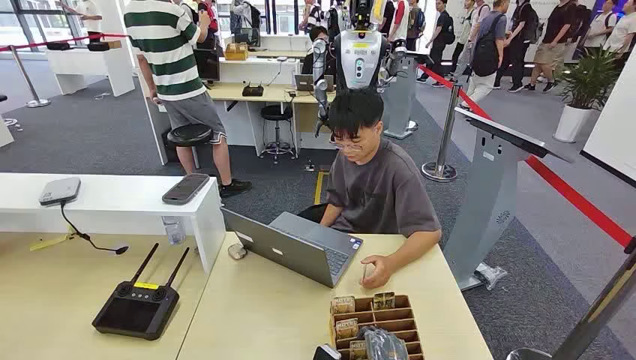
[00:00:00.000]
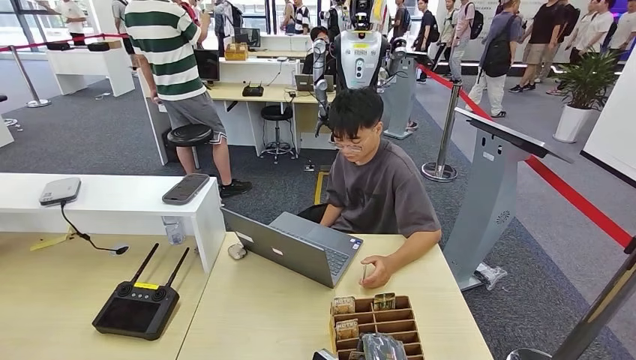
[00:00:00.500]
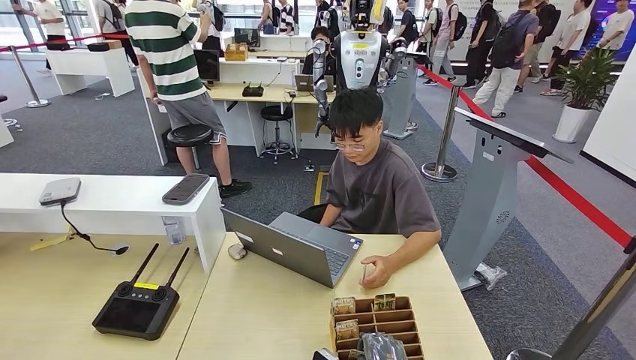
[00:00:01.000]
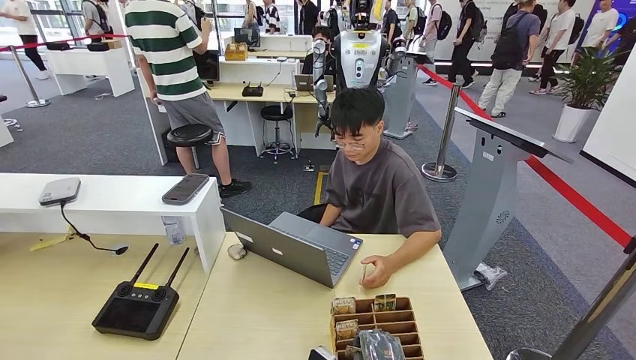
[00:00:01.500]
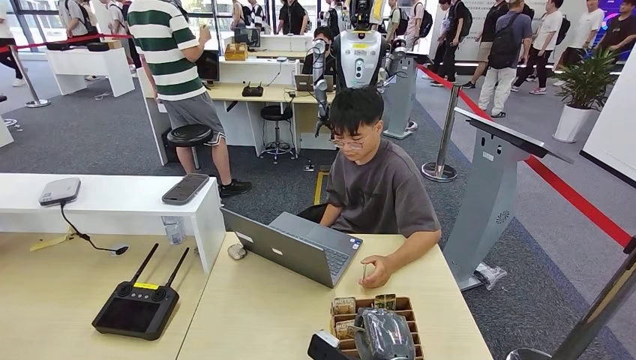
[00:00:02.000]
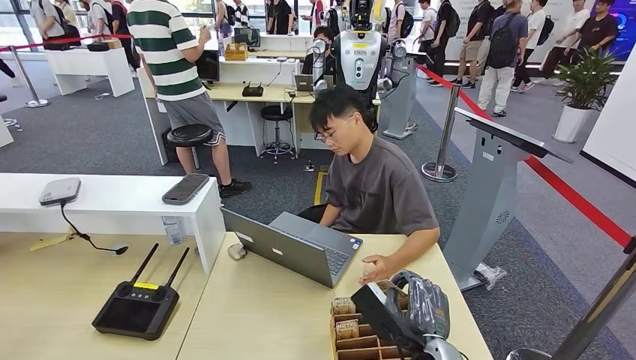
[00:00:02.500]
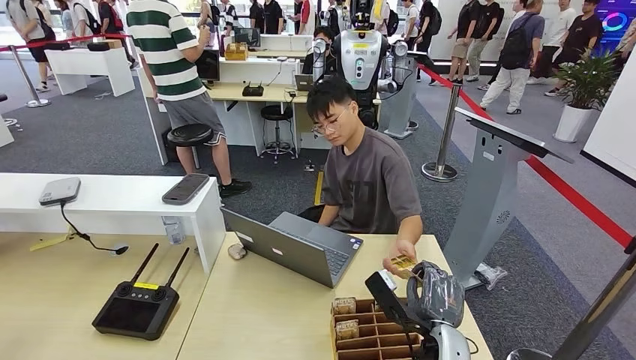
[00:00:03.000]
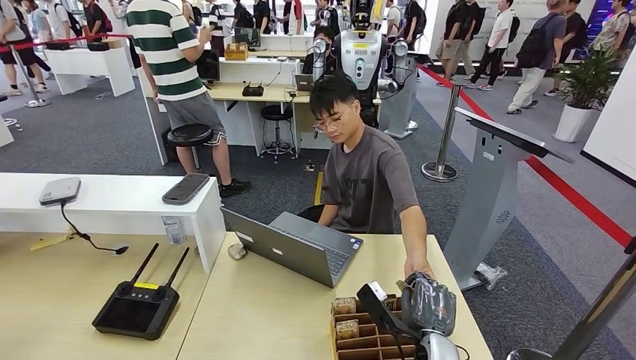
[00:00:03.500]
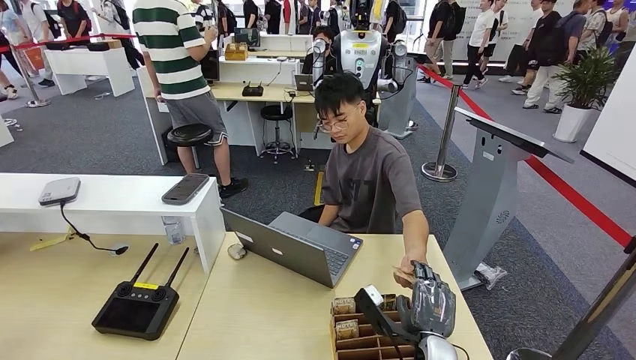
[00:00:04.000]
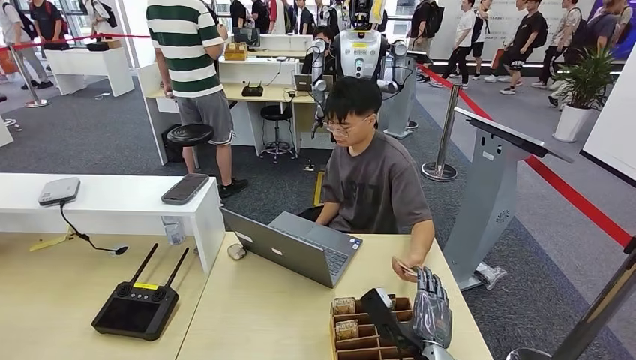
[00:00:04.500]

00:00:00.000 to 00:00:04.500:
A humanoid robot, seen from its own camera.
Step, 00:00:00.000 to 00:00:01.500: Pick up the key card from the card box.
Step, 00:00:03.500 to 00:00:04.500: Hand the key card to the target.
